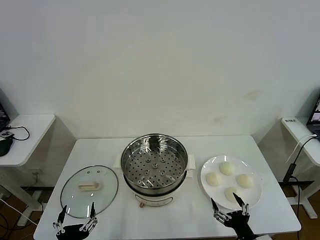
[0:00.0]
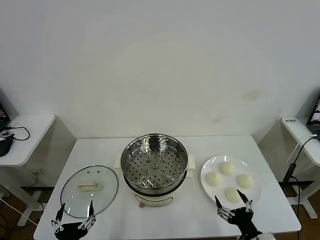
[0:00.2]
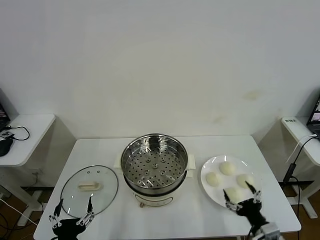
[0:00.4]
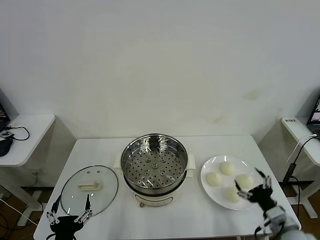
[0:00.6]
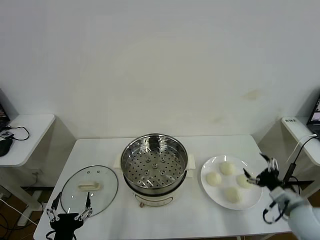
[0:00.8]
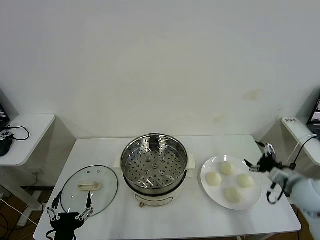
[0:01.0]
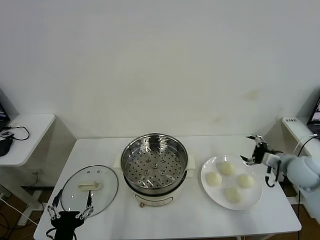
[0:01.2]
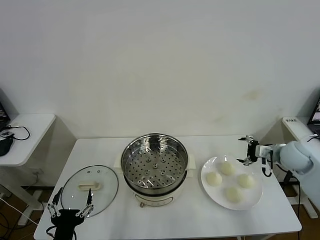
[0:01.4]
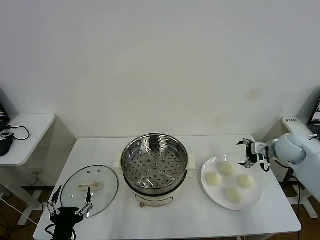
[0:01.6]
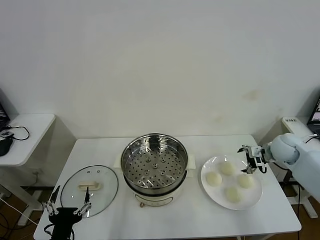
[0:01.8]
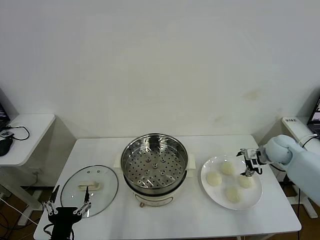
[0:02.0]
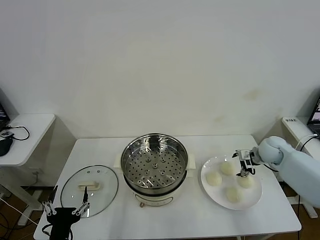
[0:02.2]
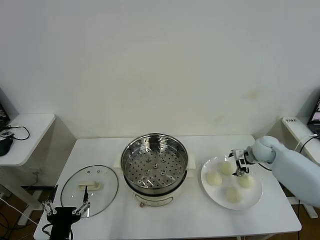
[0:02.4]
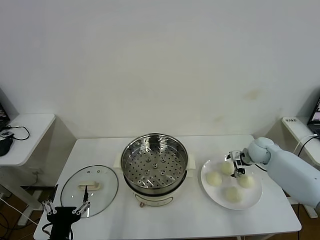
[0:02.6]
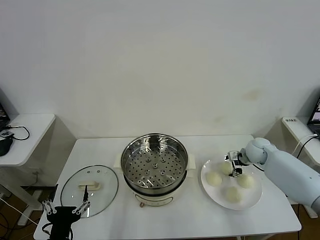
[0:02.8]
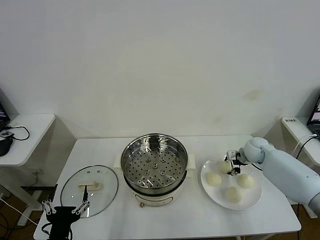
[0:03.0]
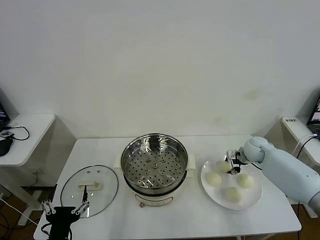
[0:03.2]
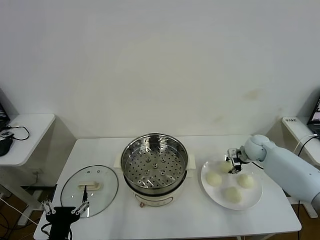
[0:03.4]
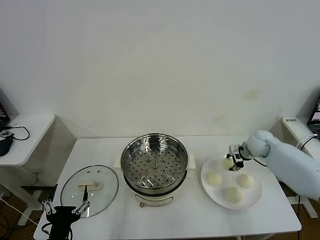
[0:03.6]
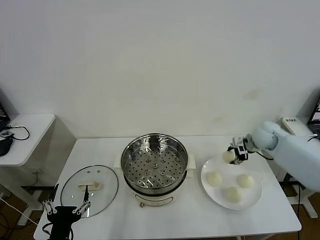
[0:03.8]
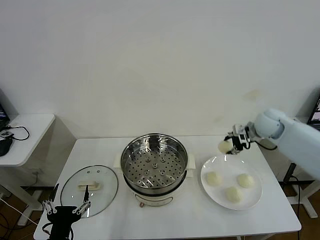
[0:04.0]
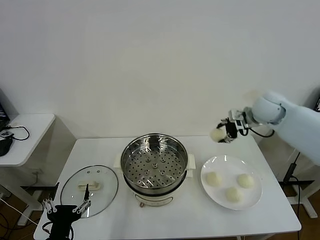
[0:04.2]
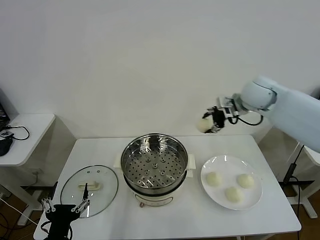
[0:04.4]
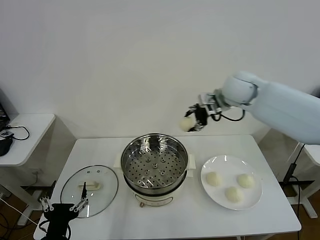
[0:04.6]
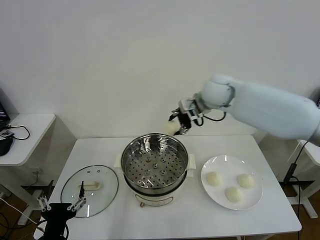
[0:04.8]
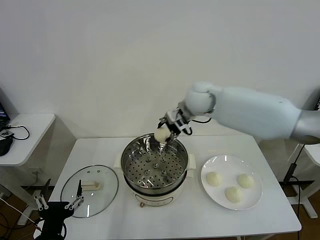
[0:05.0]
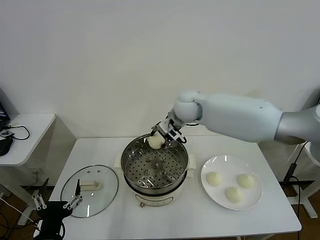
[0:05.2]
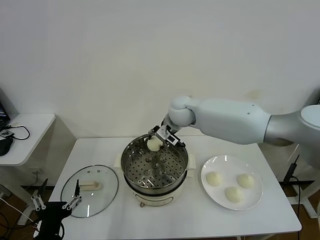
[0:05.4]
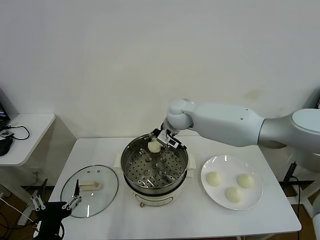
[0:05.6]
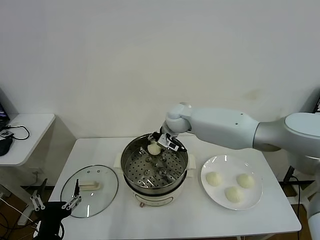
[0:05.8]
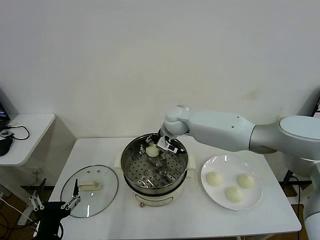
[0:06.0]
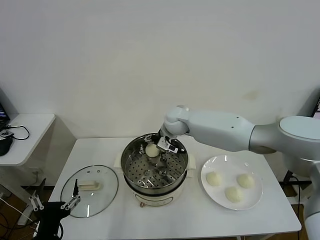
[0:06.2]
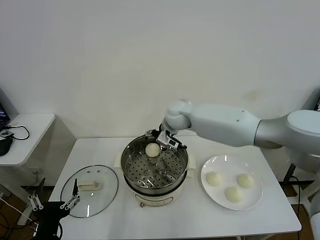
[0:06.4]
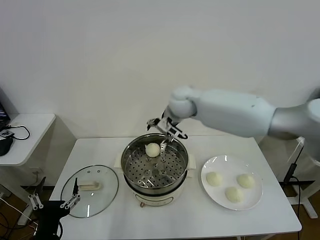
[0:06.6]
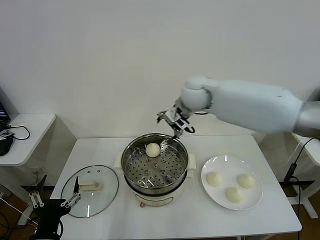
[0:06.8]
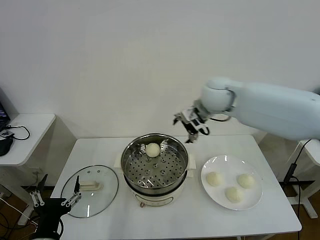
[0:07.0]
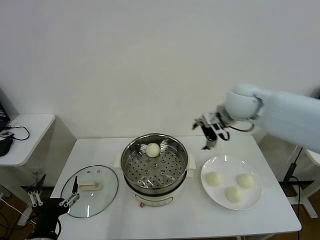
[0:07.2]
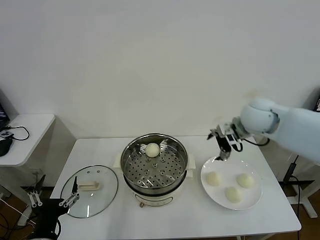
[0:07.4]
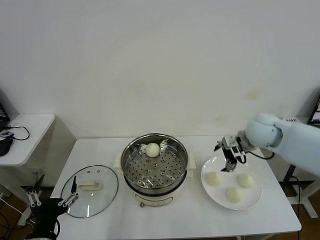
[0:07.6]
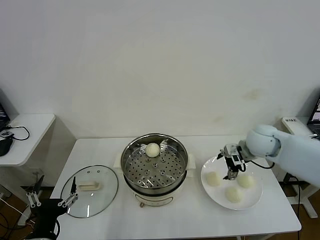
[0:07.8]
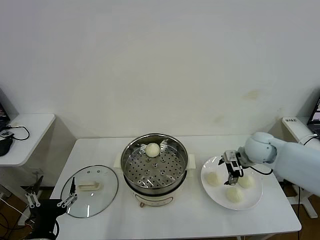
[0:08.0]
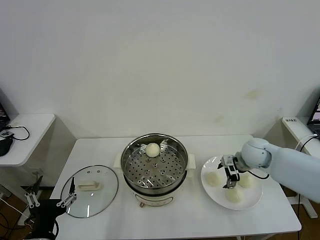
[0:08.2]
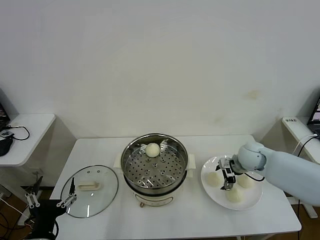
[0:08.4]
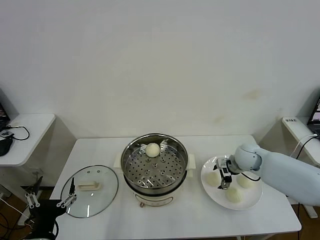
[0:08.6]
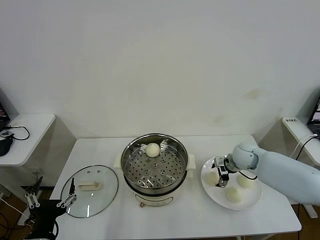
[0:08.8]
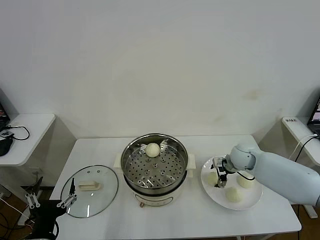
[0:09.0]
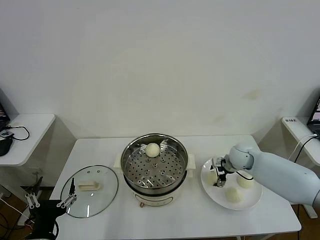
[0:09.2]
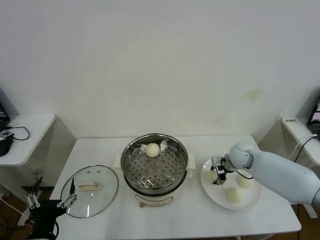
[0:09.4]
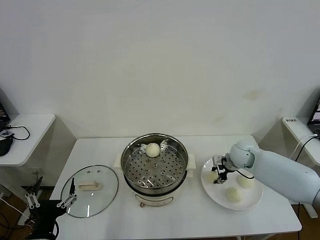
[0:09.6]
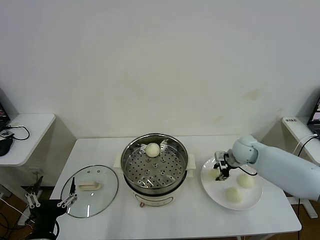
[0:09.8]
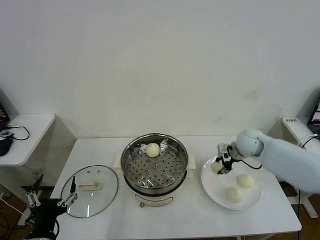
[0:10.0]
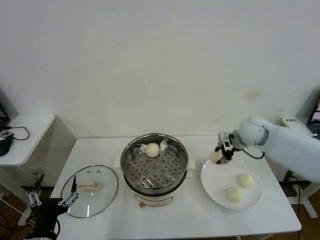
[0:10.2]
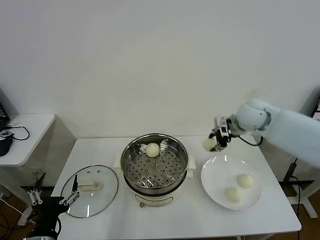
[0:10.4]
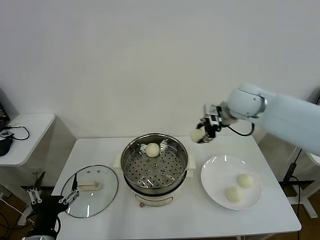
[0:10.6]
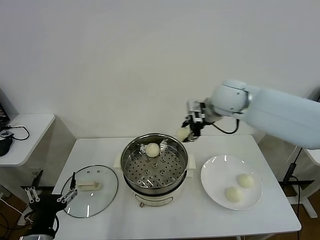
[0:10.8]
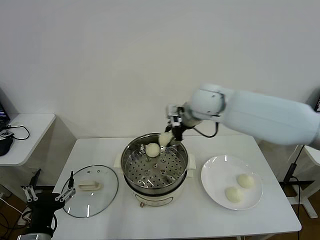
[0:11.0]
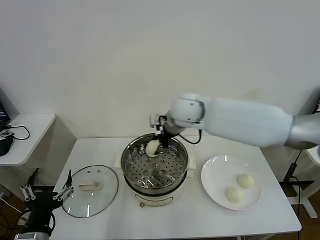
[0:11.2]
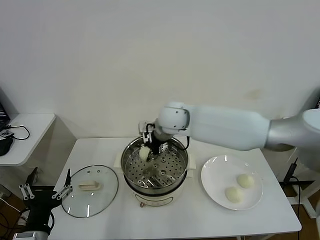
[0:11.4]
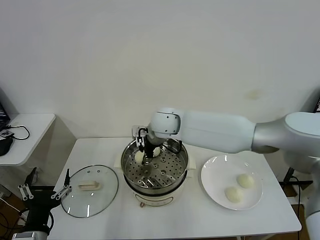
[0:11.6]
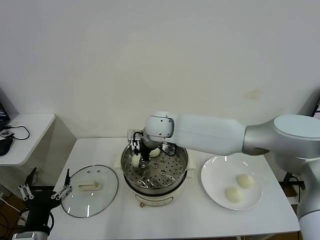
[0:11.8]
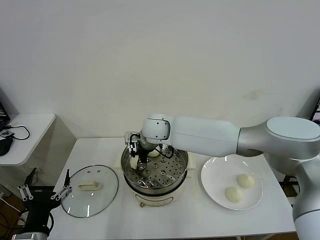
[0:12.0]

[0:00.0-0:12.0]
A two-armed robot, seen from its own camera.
Task of the whole recording: take steamed baozi put them in steamer then cover it.
Step, 0:00.0 to 0:03.0: Grasp the baozi in the plate with right gripper.
Step, 0:03.2 to 0:06.2: Place the baozi on the steamer with right gripper.
Step, 0:06.4 to 0:09.4: Grasp the baozi in the plate with right gripper.
0:01.6 to 0:03.0: The right gripper shifts some 15 cm downward, forward and to the left, and closes up.
0:03.0 to 0:04.4: The right gripper heads upward, covering roughly 25 cm.
0:04.4 to 0:06.0: The right gripper heads to the left and downward, covering approximately 25 cm.
0:06.0 to 0:07.6: The right gripper travels to the right by roughly 25 cm, and opens up.
0:07.6 to 0:09.0: The right gripper is displaced downward by some 15 cm.
0:09.0 to 0:10.4: The right gripper is displaced upward by approximately 20 cm, and closes its fingers.
0:10.4 to 0:12.0: The right gripper travels to the left by some 30 cm.

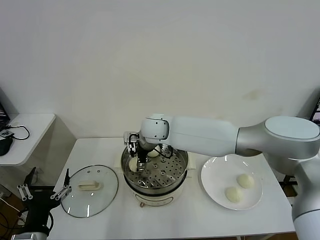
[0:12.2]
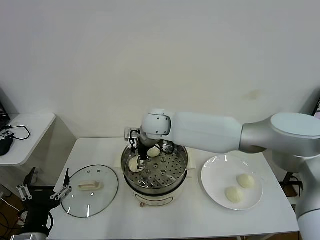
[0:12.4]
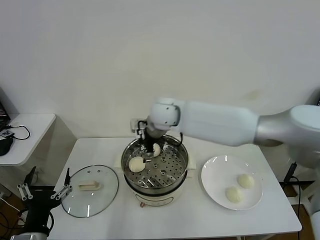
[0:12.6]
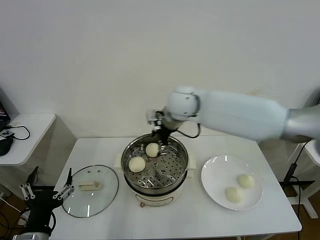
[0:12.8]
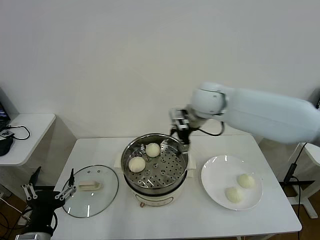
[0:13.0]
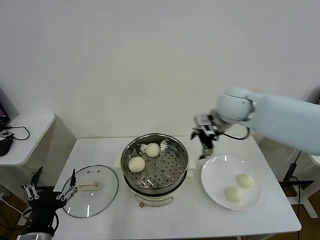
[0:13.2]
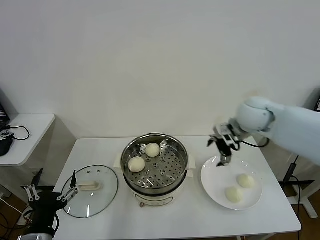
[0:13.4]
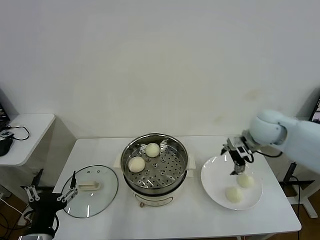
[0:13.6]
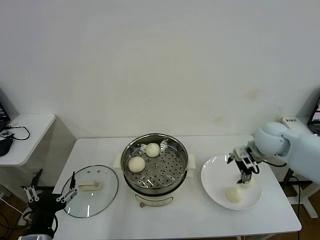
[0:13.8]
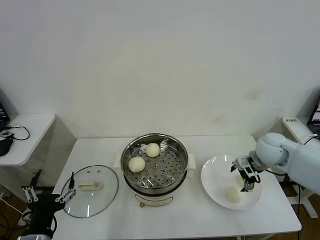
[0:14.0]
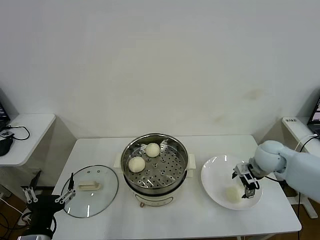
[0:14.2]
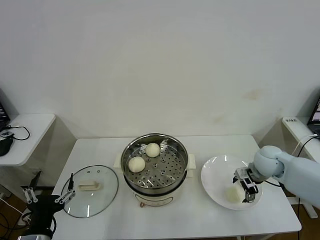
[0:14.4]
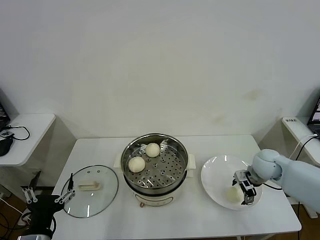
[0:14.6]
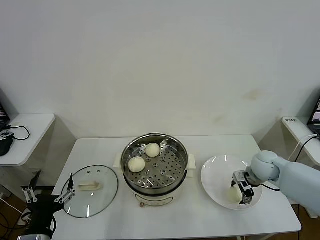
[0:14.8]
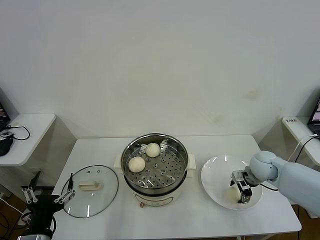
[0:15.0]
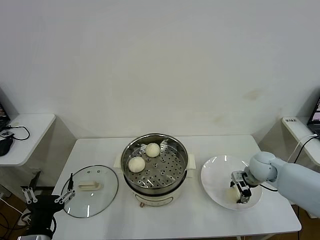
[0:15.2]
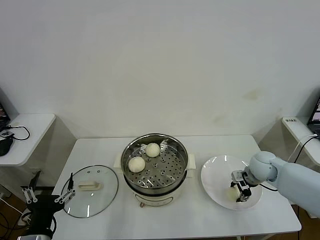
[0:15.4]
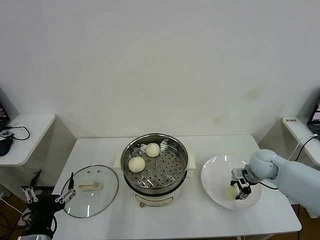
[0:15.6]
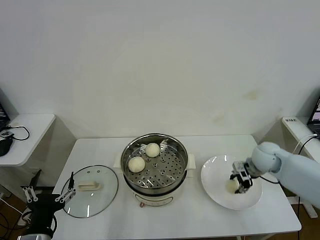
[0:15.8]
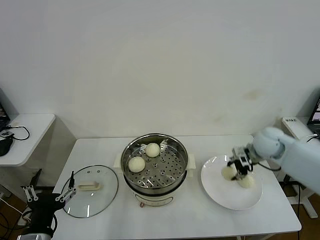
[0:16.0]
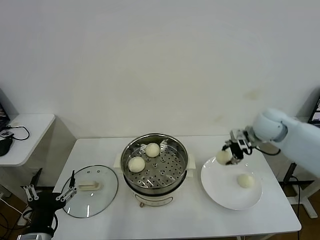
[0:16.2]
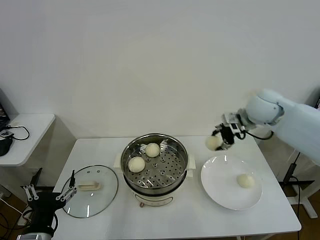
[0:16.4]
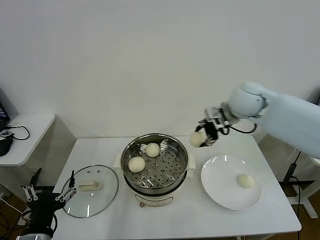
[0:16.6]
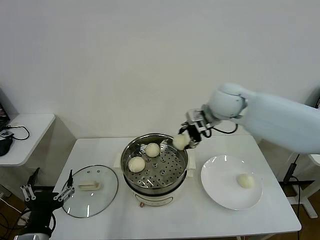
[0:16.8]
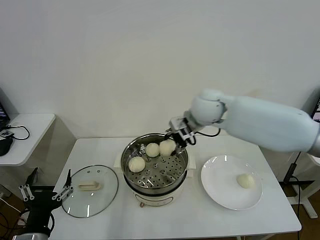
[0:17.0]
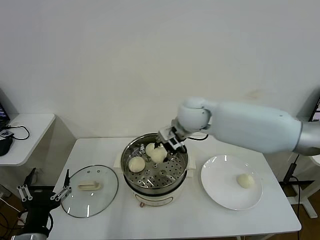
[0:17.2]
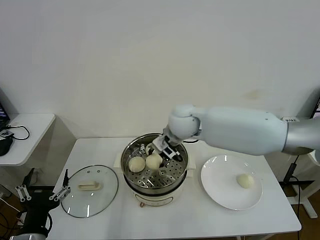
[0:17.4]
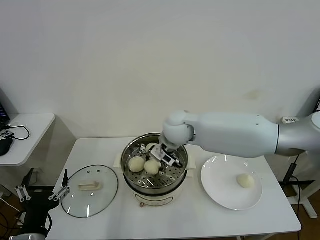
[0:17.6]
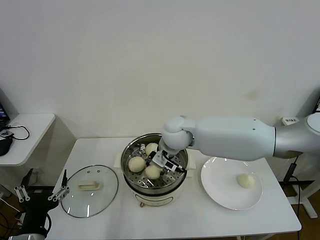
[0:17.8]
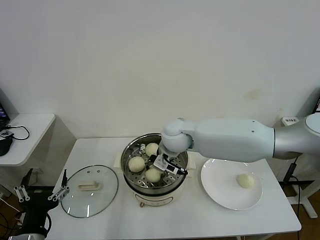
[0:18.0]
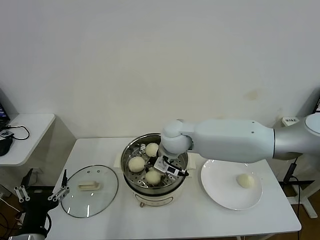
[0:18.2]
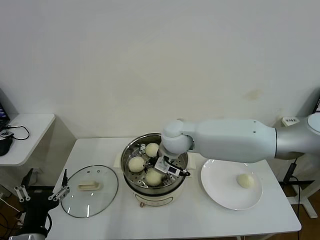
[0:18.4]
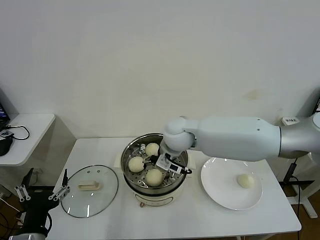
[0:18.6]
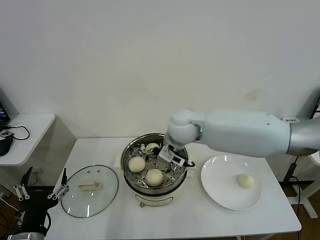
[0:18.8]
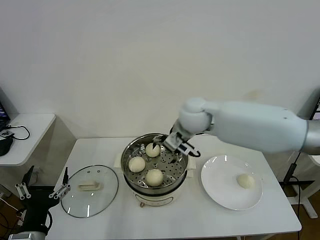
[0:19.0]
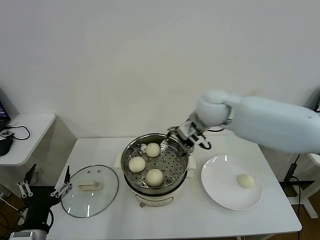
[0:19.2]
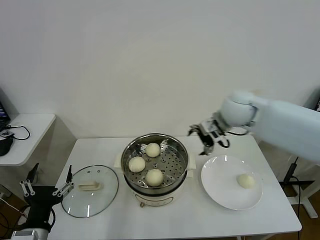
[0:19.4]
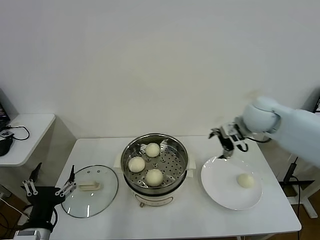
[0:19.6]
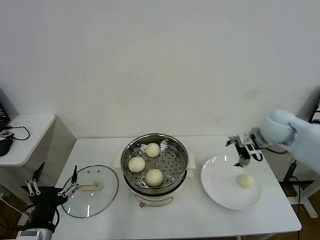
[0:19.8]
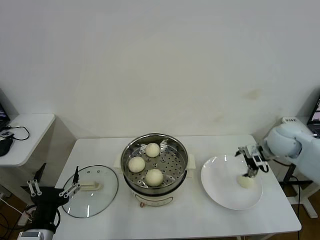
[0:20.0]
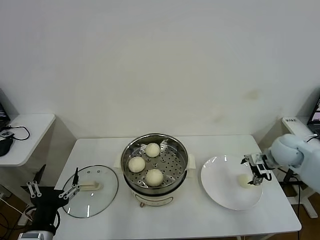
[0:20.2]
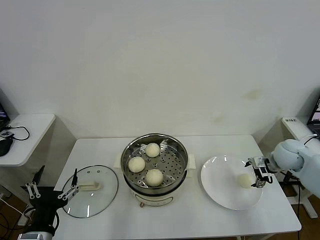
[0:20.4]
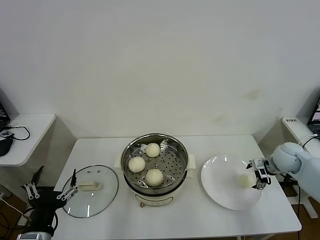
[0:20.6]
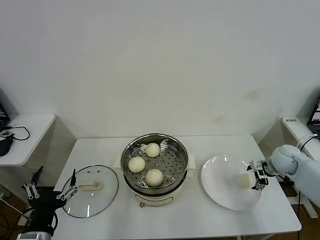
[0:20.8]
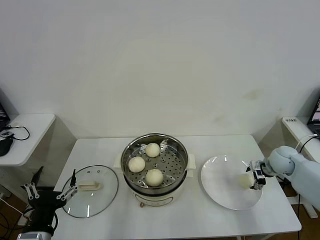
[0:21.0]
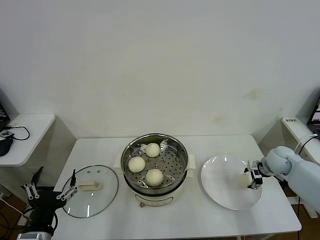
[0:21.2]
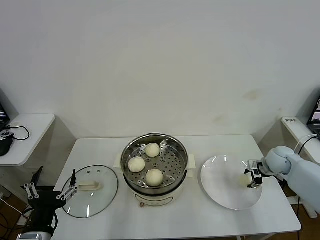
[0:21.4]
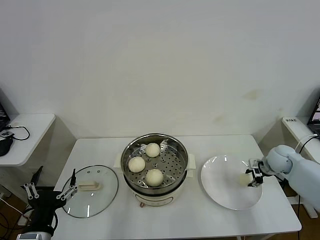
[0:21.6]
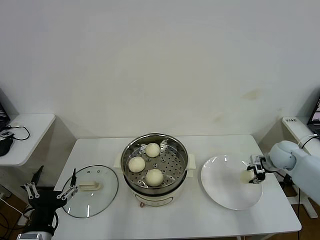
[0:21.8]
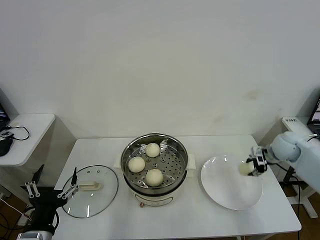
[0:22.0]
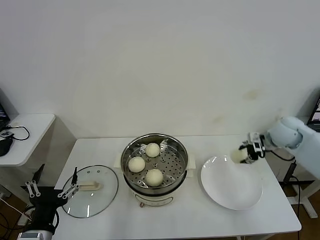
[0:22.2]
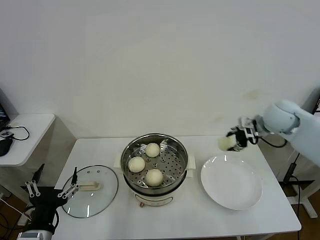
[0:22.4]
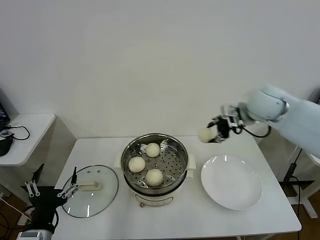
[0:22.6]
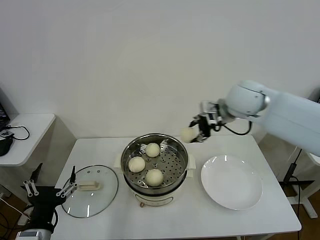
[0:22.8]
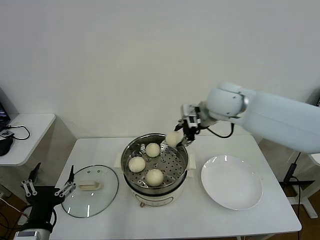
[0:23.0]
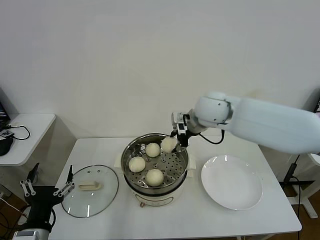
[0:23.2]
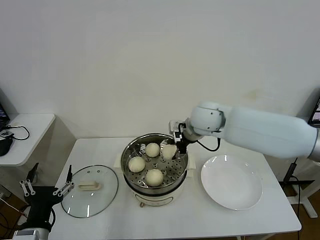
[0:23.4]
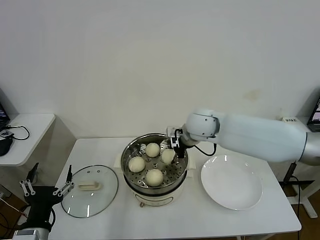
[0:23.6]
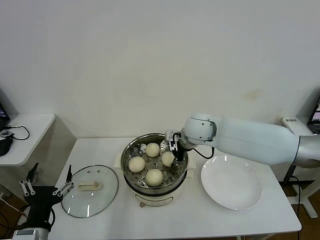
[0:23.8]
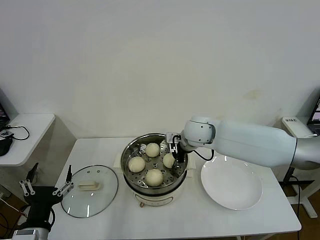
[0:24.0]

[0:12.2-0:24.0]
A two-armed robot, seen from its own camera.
Task of the whole recording: take steamed baozi put them in steamer then cover it.
Step, 0:12.4 to 0:15.4: Grasp the baozi in the plate with right gripper.
Step, 0:15.6 to 0:18.6: Place the baozi on the steamer with right gripper.
Step, 0:18.8 to 0:21.6: Grasp the baozi in the plate with right gripper.
0:12.2 to 0:13.6: The right gripper moves to the right, approximately 35 cm, and opens up.
0:13.6 to 0:15.2: The right gripper travels downward by some 15 cm, and closes.
0:15.2 to 0:16.6: The right gripper moves upward and to the left, roughly 25 cm, and closes.
0:16.6 to 0:18.2: The right gripper travels to the left and downward by roughly 20 cm.
0:18.2 to 0:19.6: The right gripper shifts approximately 25 cm to the right, and opens its fingers.
0:19.6 to 0:21.0: The right gripper goes roughly 25 cm downward and to the right.
0:21.0 to 0:22.6: The right gripper heads upward and to the left, covering approximately 25 cm, and closes its fingers.
0:22.6 to 0:24.0: The right gripper moves to the left and downward, some 20 cm.
